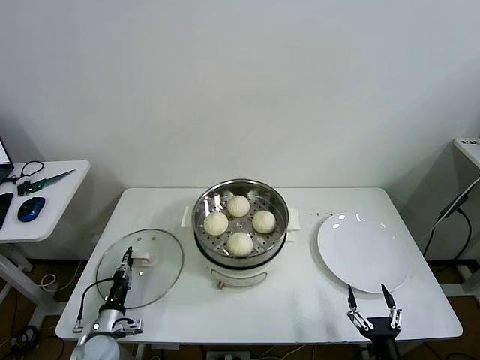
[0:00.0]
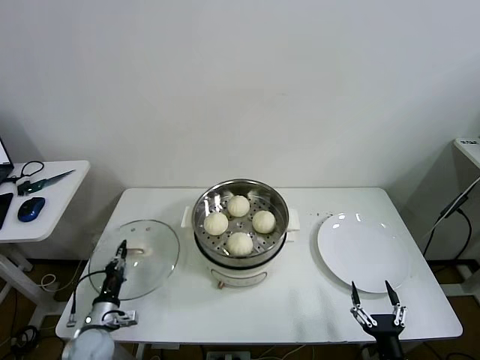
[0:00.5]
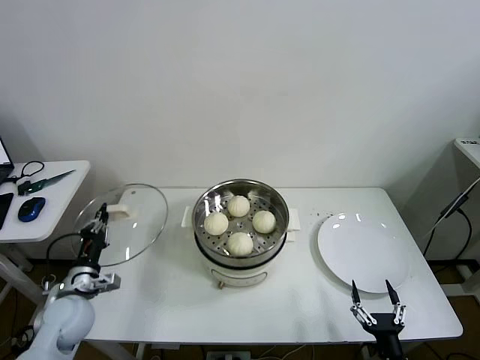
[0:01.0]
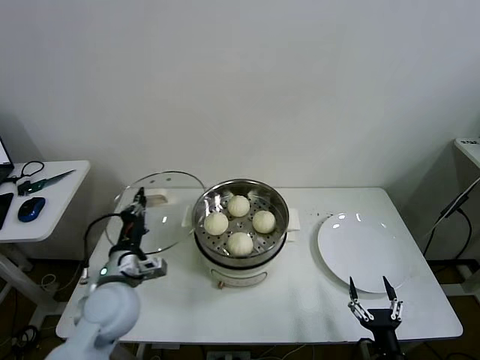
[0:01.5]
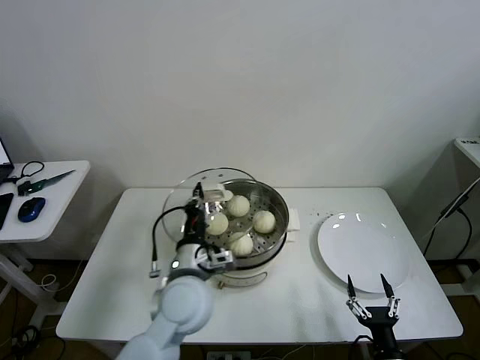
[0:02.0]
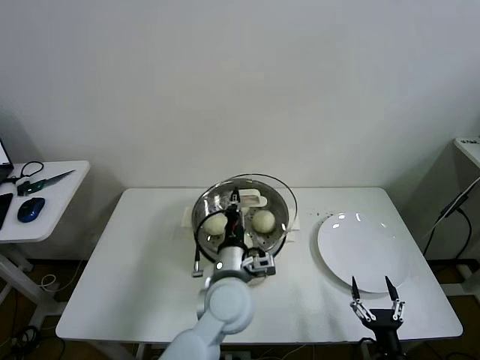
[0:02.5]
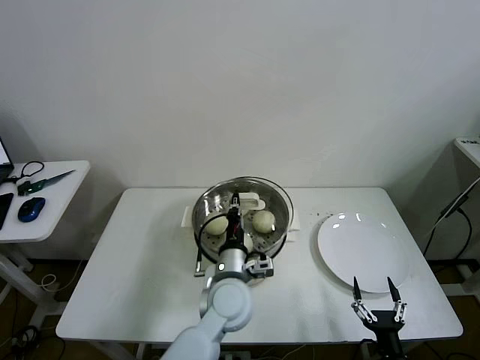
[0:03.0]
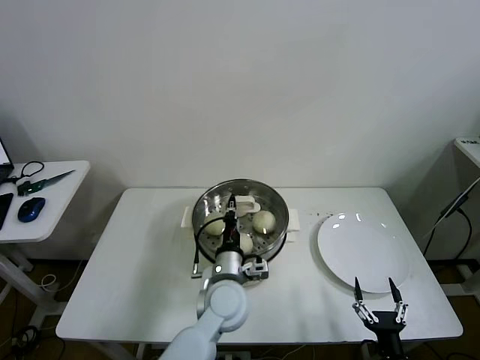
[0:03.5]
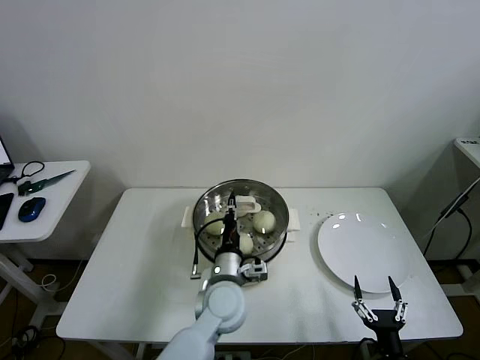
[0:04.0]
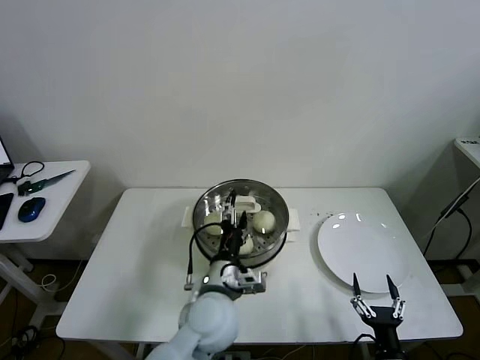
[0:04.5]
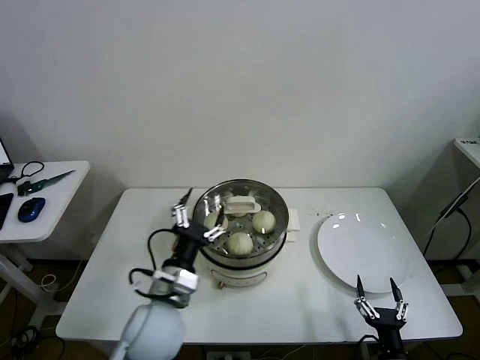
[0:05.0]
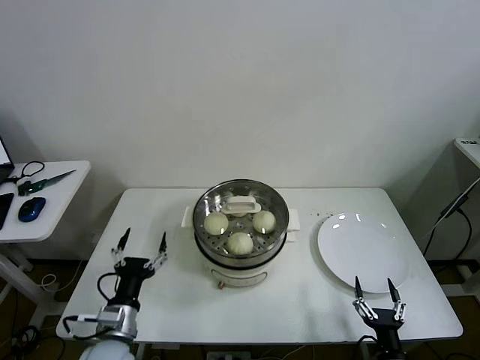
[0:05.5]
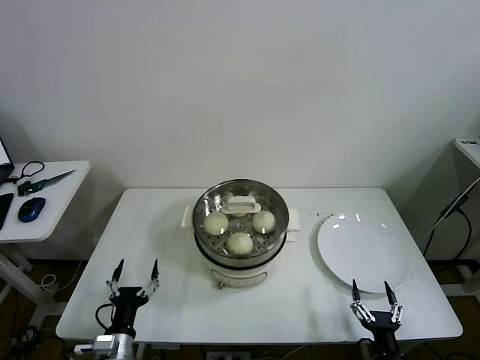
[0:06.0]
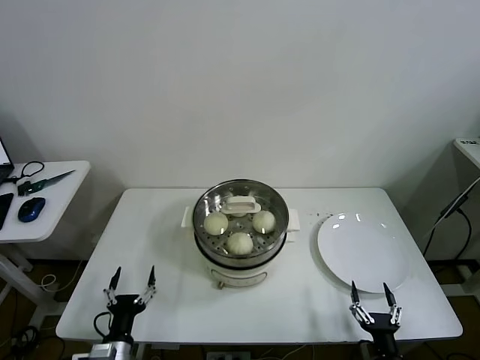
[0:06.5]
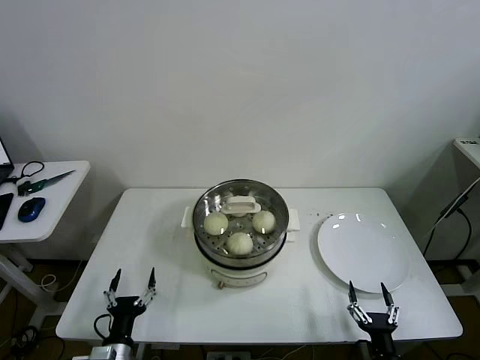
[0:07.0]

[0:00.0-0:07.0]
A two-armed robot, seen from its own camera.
Task of the whole recording: take steamed baozi put them in steamer then cover it.
Step, 0:00.5 to 0:04.0: Place the pot lid on the steamer with left gripper.
0:00.0 to 0:02.0: The left gripper is displaced upward and to the right by about 35 cm.
0:02.0 to 0:03.5: The left gripper heads to the right and downward, covering some 10 cm.
0:03.5 to 0:05.0: The left gripper shifts some 15 cm to the left, backward and upward, and opens up.
0:05.0 to 0:07.0: The left gripper moves downward, to the left and backward, some 25 cm.
